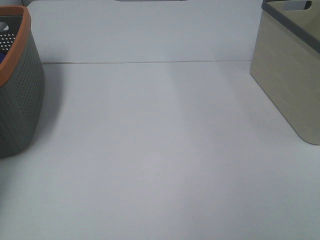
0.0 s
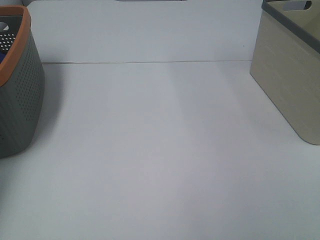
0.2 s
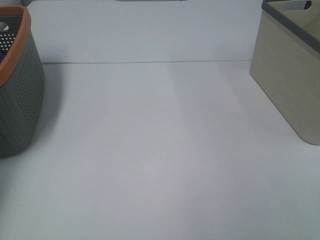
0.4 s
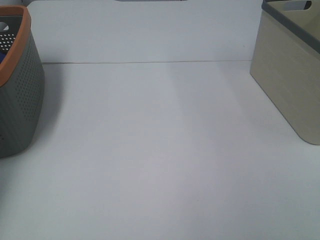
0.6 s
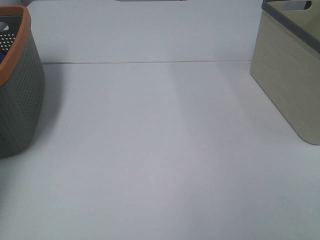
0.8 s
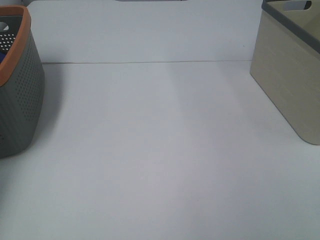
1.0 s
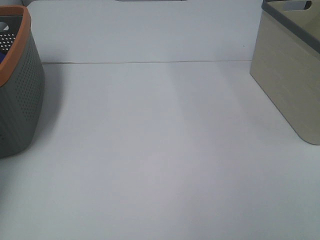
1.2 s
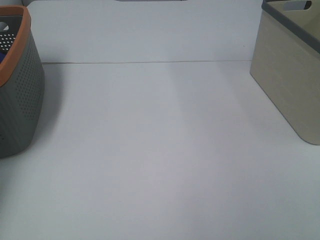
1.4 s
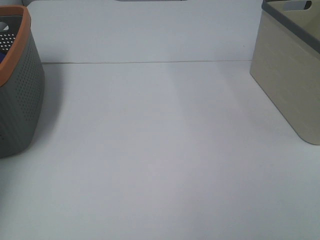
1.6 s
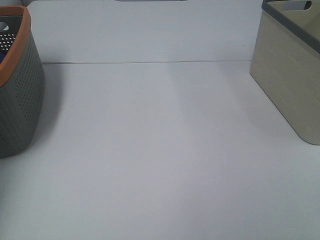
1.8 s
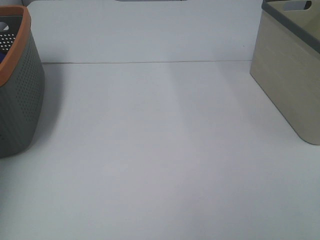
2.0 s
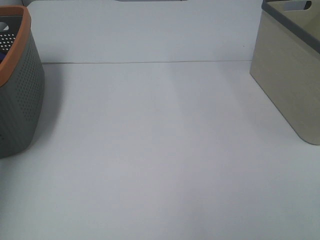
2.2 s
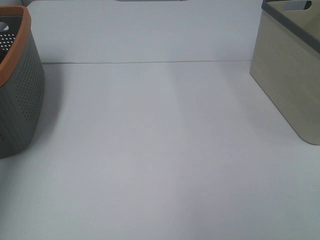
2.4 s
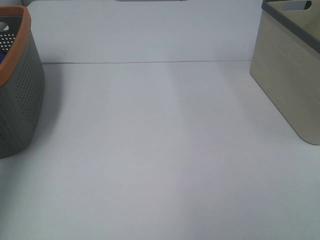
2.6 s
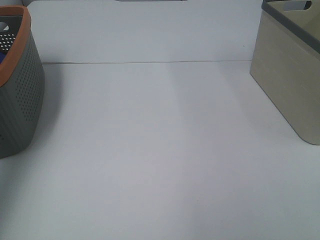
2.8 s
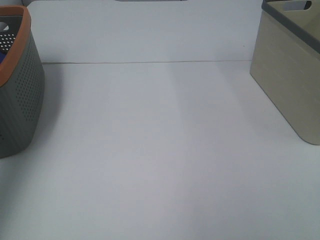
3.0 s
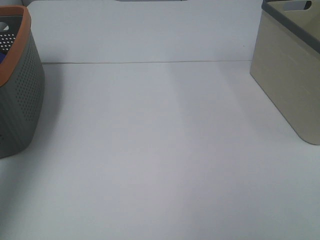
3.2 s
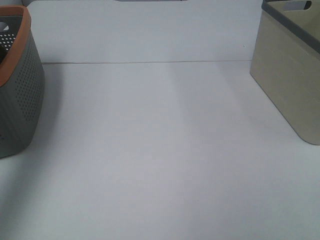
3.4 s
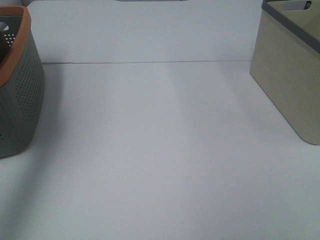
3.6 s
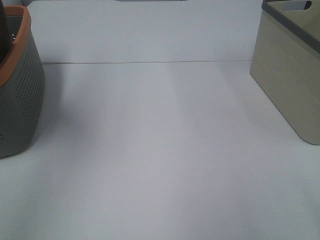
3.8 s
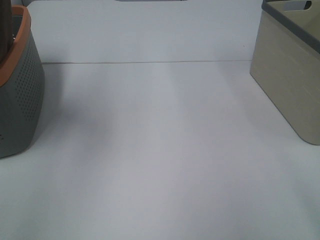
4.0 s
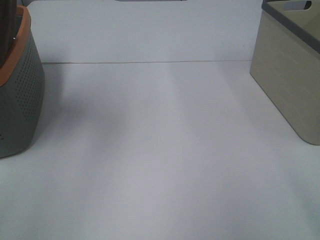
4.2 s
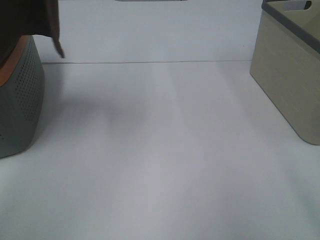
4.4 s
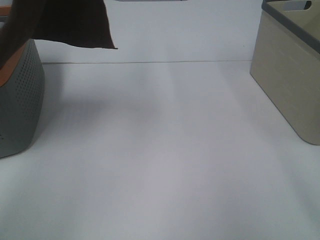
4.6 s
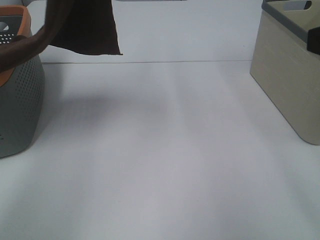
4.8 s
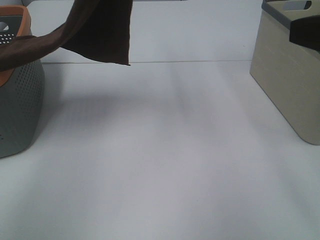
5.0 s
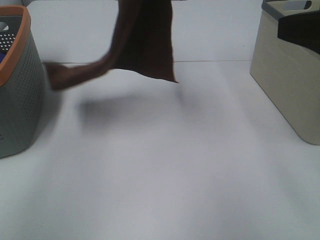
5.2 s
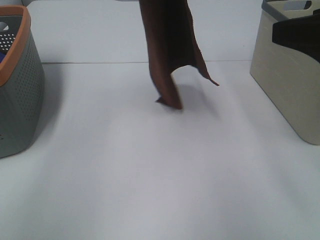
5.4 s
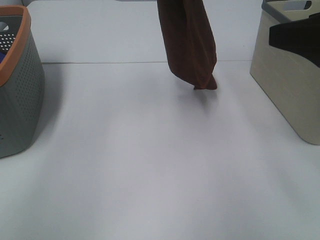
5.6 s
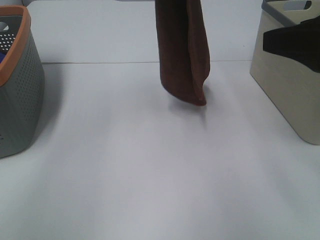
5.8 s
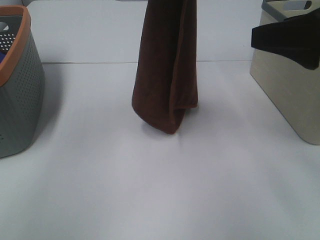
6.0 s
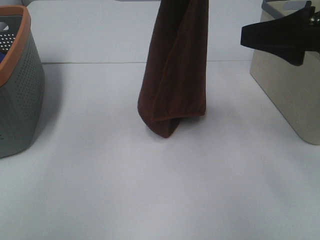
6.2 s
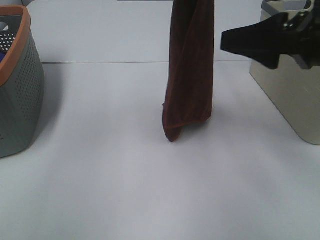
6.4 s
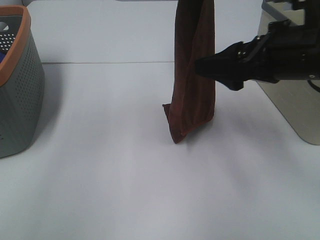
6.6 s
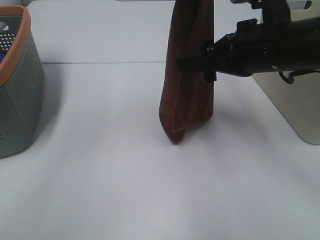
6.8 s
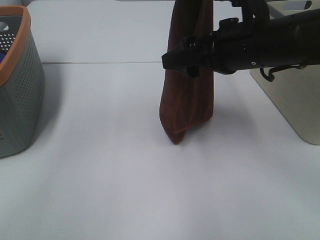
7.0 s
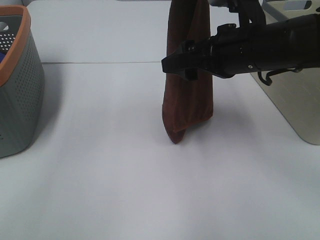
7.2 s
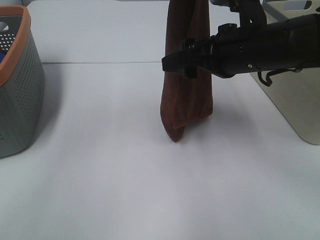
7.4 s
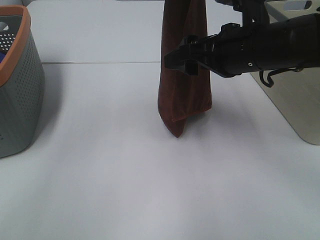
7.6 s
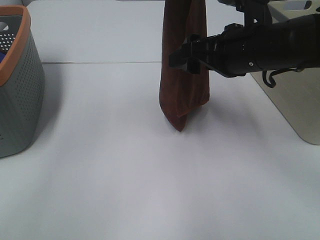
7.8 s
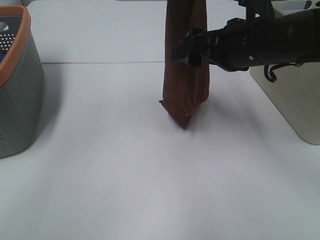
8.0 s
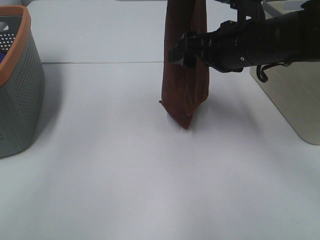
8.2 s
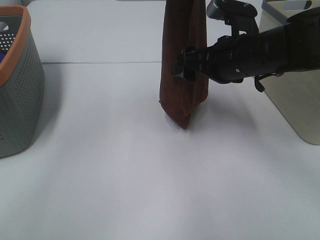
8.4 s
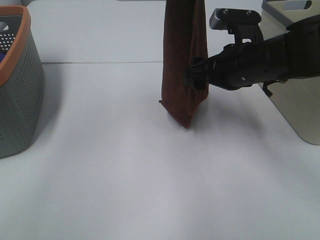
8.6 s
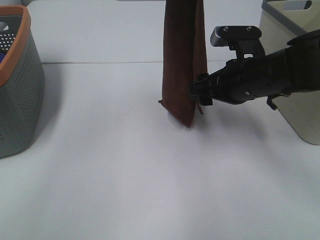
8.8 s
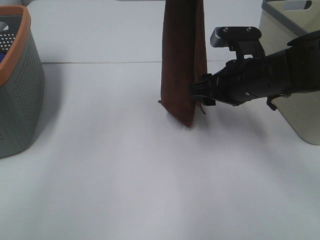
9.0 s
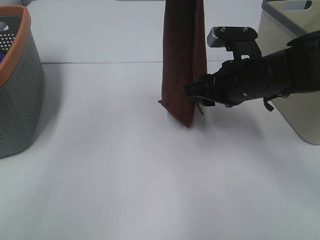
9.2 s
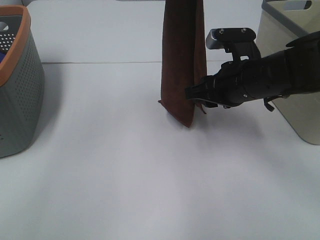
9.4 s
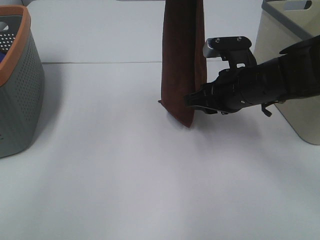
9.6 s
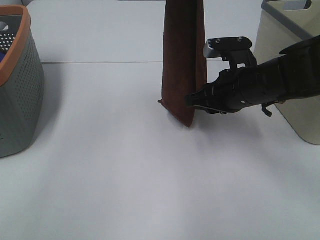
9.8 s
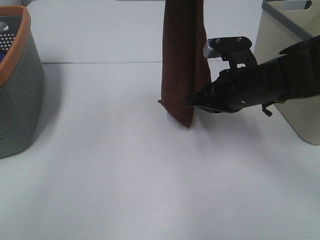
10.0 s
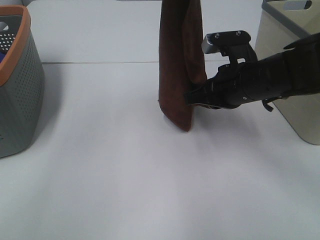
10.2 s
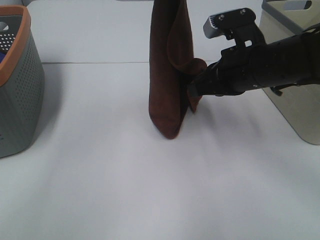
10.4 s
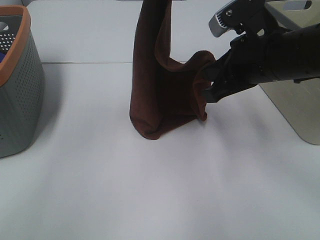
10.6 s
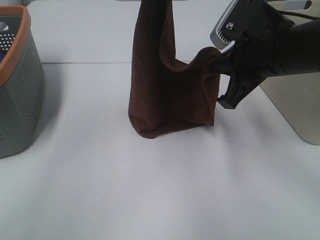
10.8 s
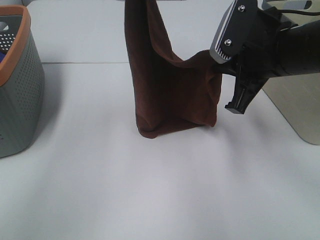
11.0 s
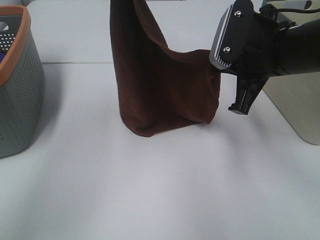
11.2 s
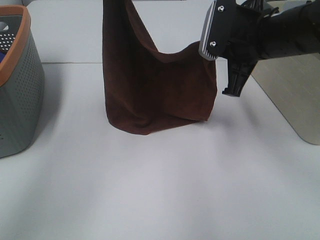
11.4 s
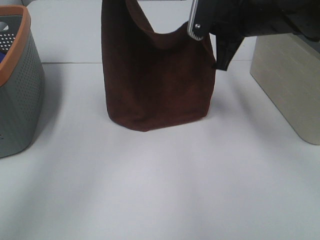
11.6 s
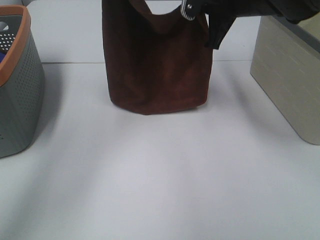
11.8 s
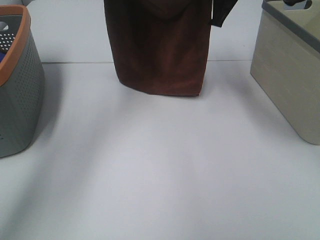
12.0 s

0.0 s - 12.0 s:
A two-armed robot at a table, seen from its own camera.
Task of the whole recording: Remove the towel and place it.
Step, 3.0 s - 7.8 s: Right hand: grab a corner of the brown towel and straighten it.
1.6 s - 3.0 s: The left gripper is displaced upward and backward by roughly 30 cm.
3.0 s - 4.4 s: The left gripper moves to the right, about 20 cm, while the right gripper heads forward and upward, covering some 15 cm.
4.4 s - 6.0 s: The right gripper shifts approximately 10 cm forward. Meanwhile the left gripper is displaced to the right and downward by roughly 20 cm.
6.0 s - 7.6 s: The right gripper shifts some 15 cm to the left, forward and downward.
7.6 s - 9.0 s: The right gripper heads downward, covering some 5 cm.
9.0 s - 10.4 s: The right gripper closes its fingers.
10.4 s - 12.0 s: The right gripper travels forward and upward by some 15 cm. Meanwhile the left gripper moves forward and to the left, some 20 cm.

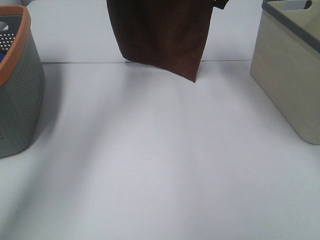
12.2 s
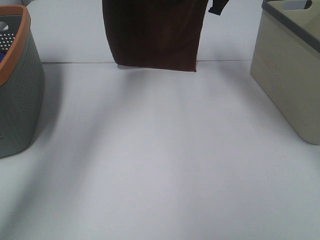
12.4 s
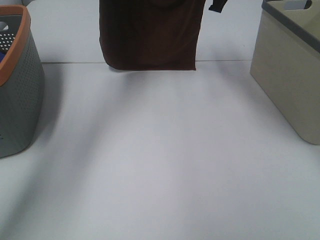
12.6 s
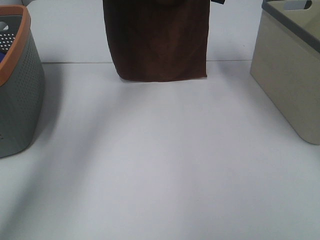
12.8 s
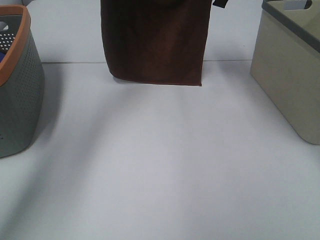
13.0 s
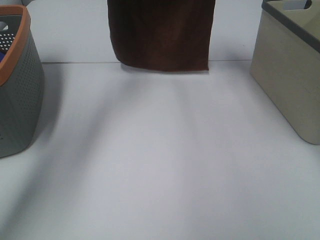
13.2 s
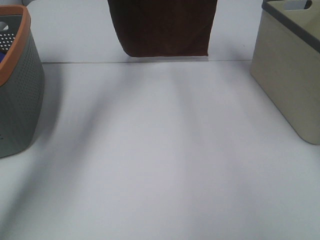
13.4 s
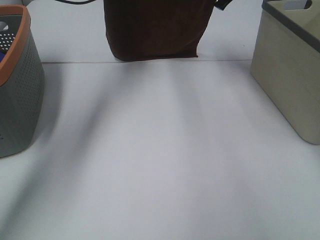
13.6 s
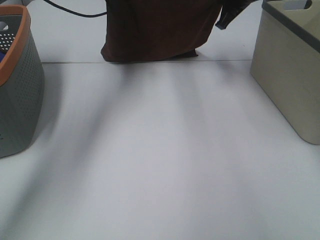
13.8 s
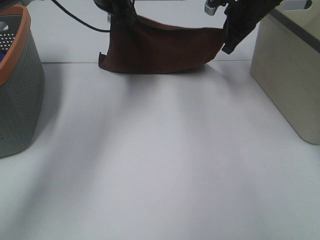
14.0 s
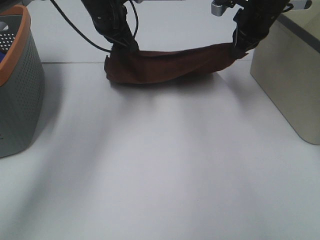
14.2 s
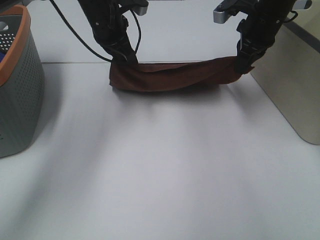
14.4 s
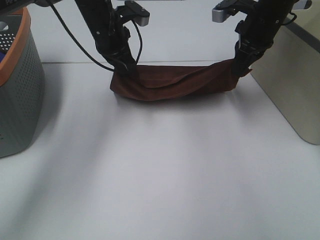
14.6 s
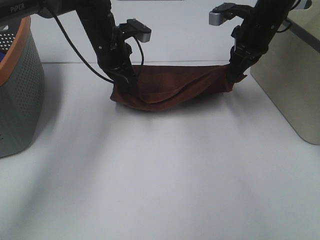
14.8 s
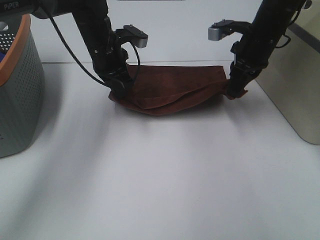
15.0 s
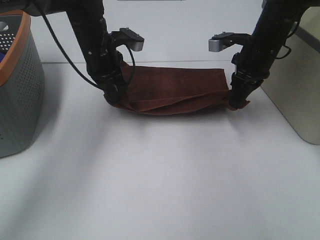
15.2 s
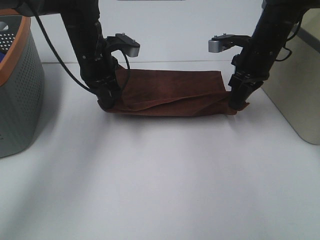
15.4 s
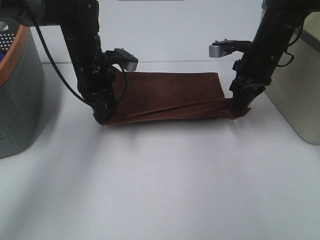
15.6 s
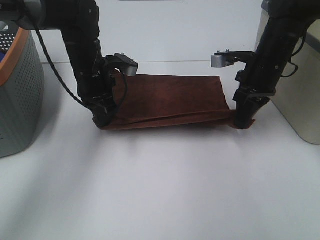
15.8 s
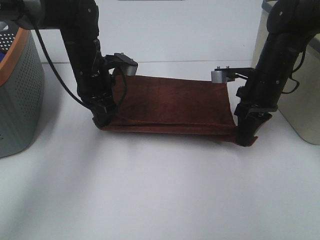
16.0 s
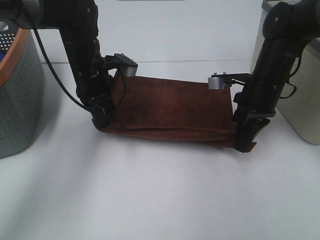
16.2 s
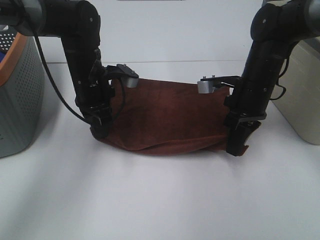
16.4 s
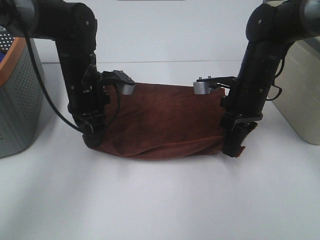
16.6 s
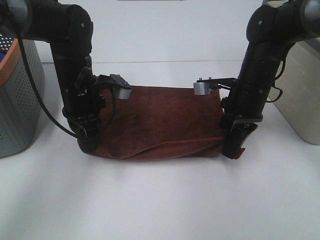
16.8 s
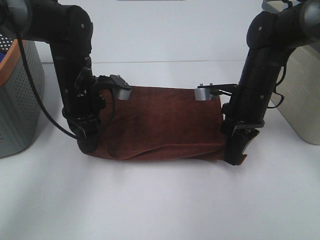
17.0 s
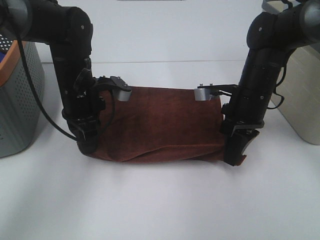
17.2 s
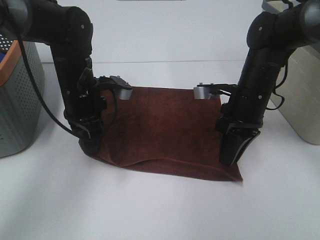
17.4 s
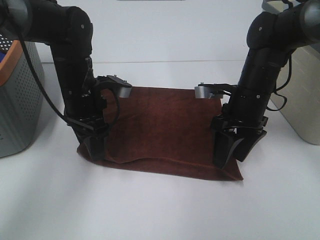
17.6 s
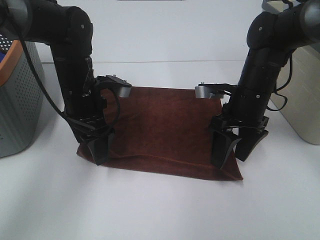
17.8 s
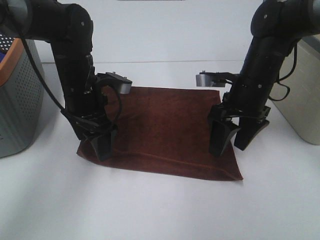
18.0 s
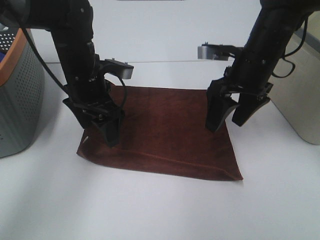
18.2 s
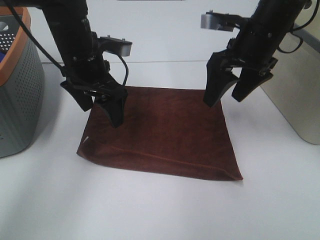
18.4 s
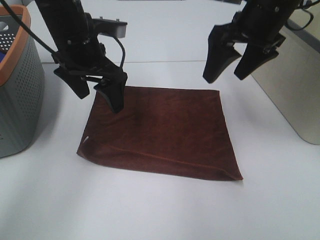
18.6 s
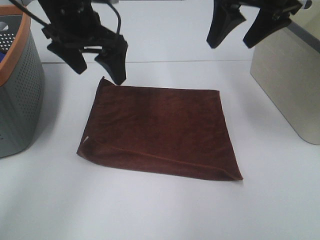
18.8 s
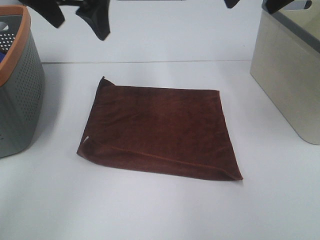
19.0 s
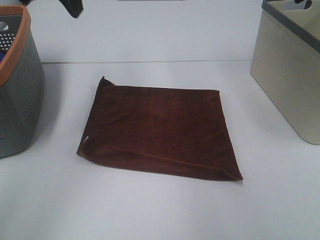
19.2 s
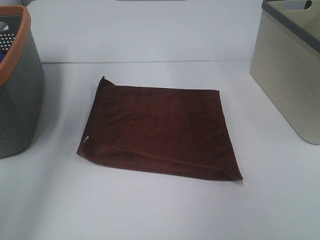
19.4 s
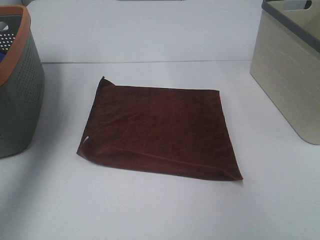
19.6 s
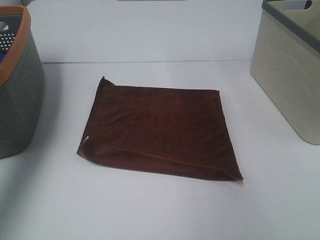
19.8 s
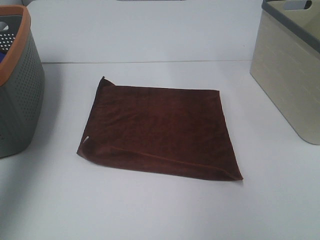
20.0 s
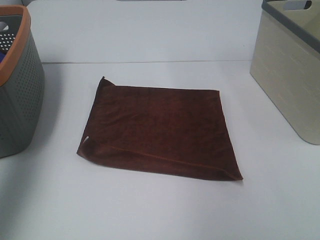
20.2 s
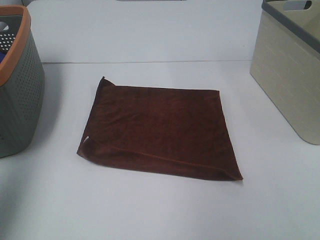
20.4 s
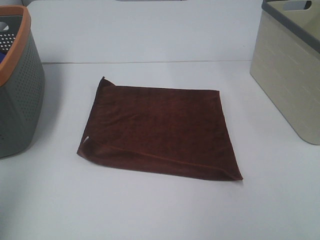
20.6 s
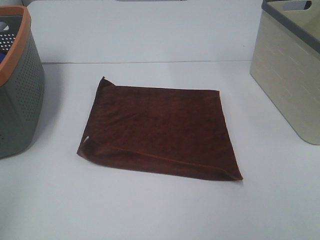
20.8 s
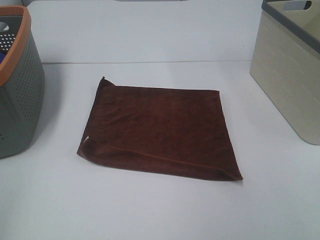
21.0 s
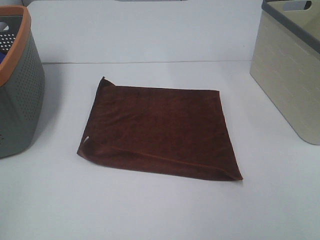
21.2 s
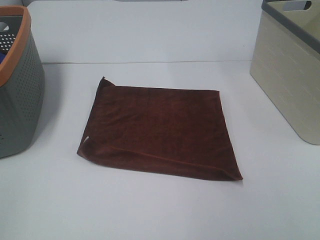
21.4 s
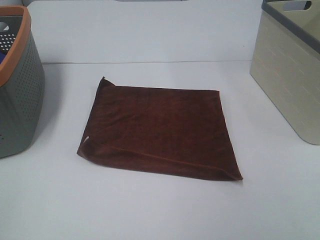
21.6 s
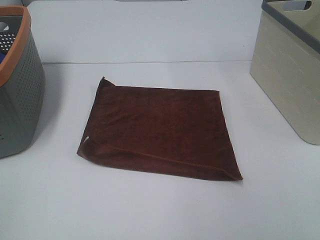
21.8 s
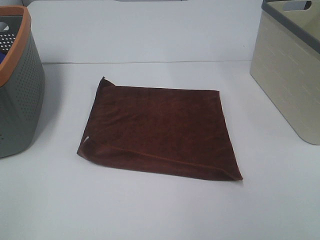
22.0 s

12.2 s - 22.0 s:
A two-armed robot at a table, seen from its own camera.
Task of the whole recording: Remove the towel and place it.
12.2 s - 13.6 s: The right gripper is displaced forward by approximately 5 cm, while the left gripper shifts by some 5 cm.
13.6 s - 15.0 s: The two grippers go about 15 cm downward and backward.
15.0 s - 16.4 s: The right gripper is displaced backward and downward by roughly 10 cm. The left gripper travels backward by approximately 5 cm.
16.4 s - 17.8 s: The left gripper opens its fingers, while the right gripper opens.
17.8 s - 19.2 s: Both grippers move upward, approximately 25 cm.
19.2 s - 20.6 s: The left gripper travels backward and to the left by approximately 30 cm.
20.6 s - 22.0 s: The left gripper shifts roughly 15 cm backward and downward.
